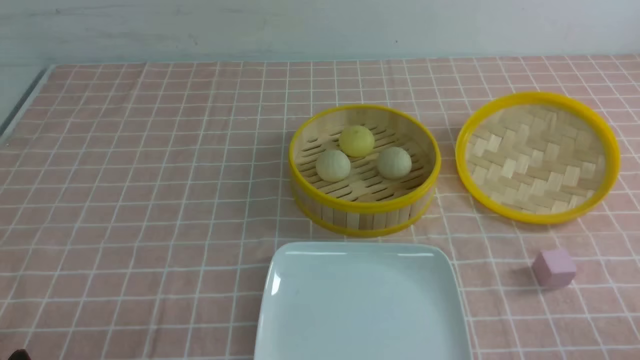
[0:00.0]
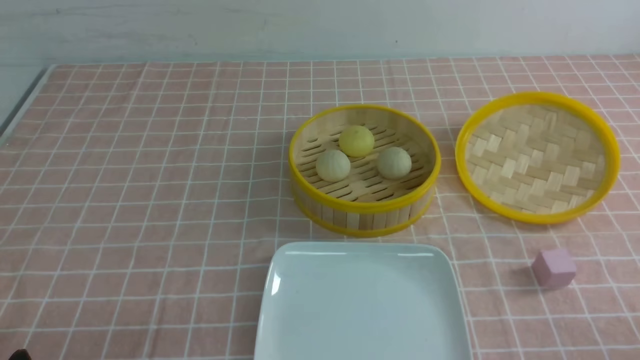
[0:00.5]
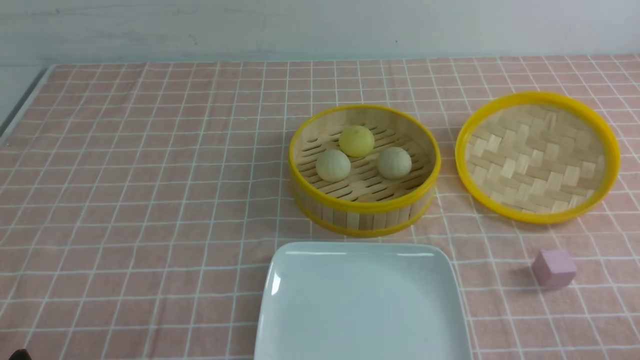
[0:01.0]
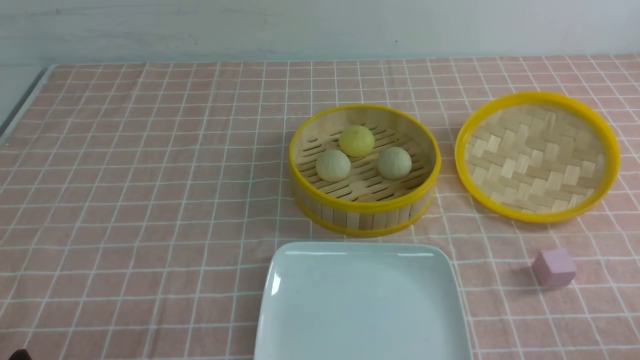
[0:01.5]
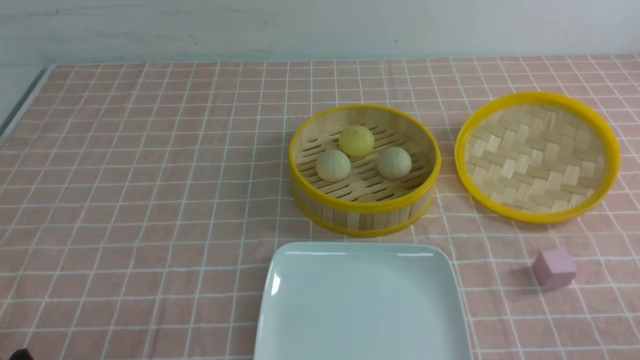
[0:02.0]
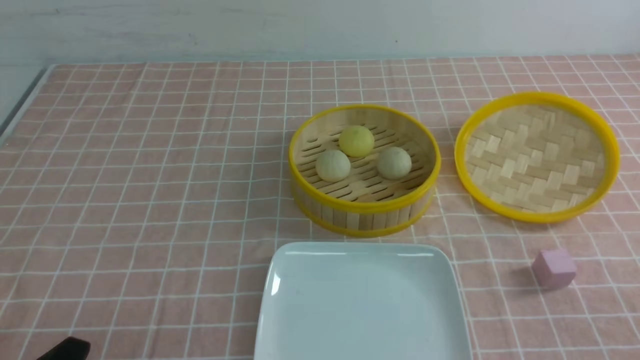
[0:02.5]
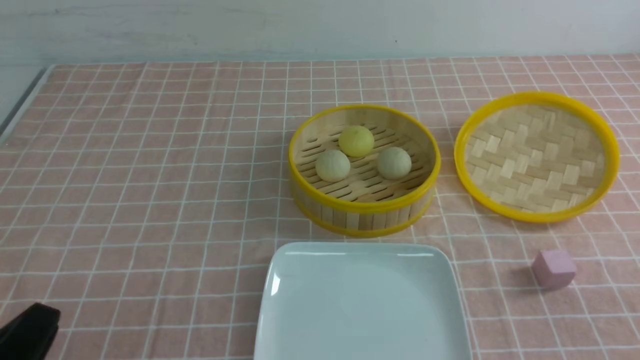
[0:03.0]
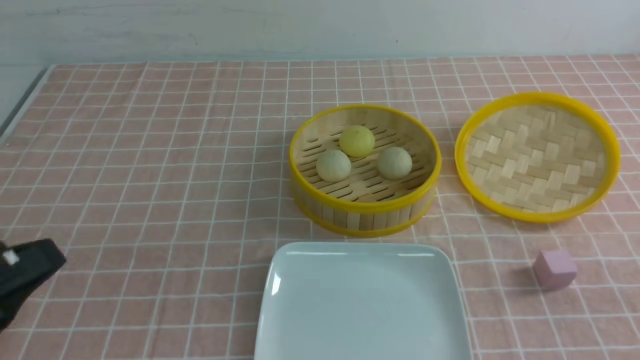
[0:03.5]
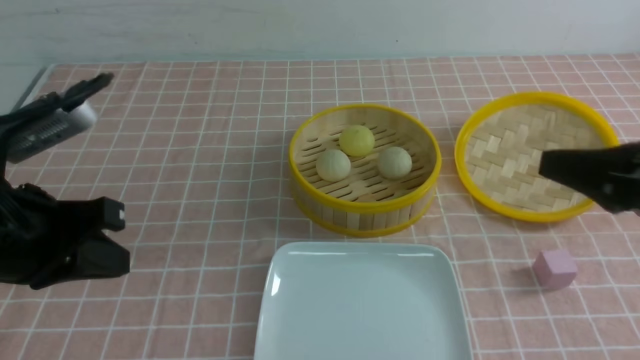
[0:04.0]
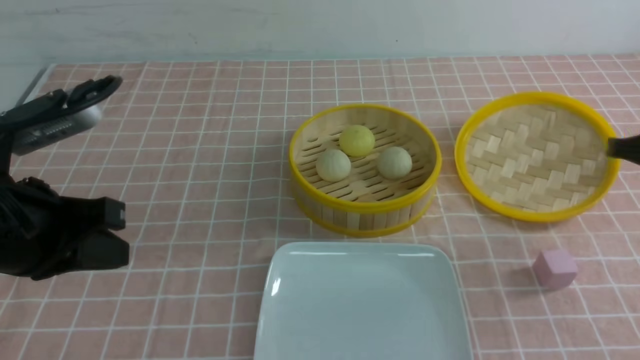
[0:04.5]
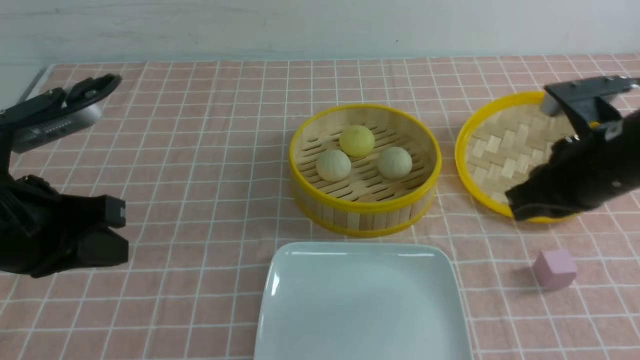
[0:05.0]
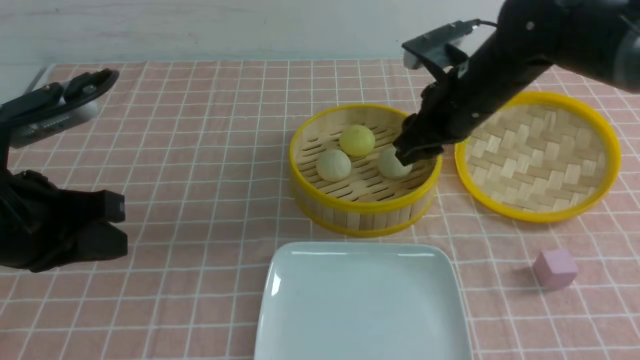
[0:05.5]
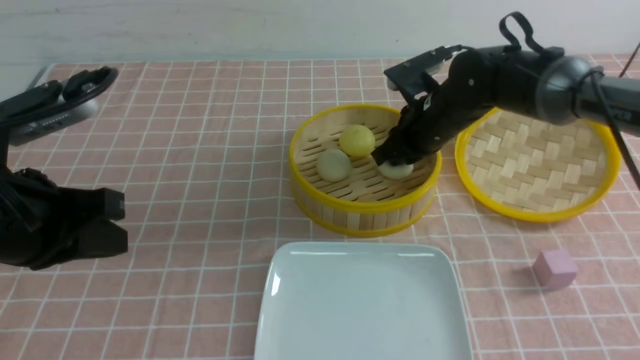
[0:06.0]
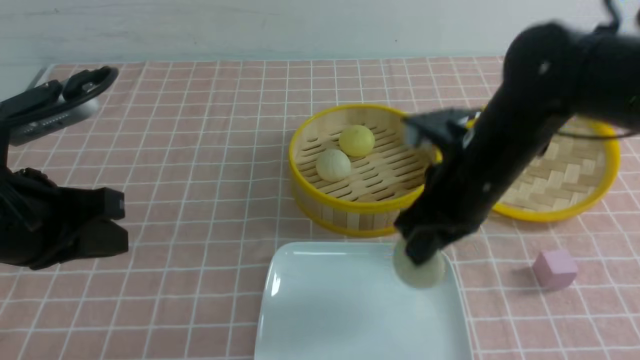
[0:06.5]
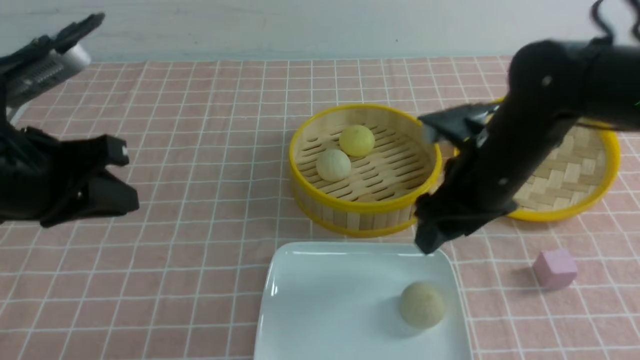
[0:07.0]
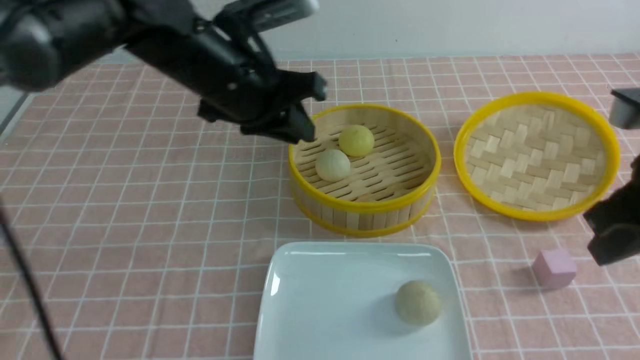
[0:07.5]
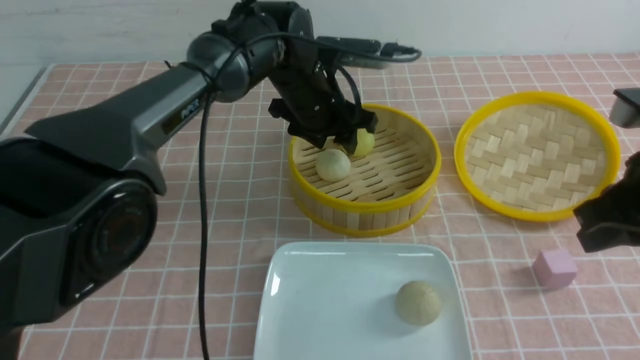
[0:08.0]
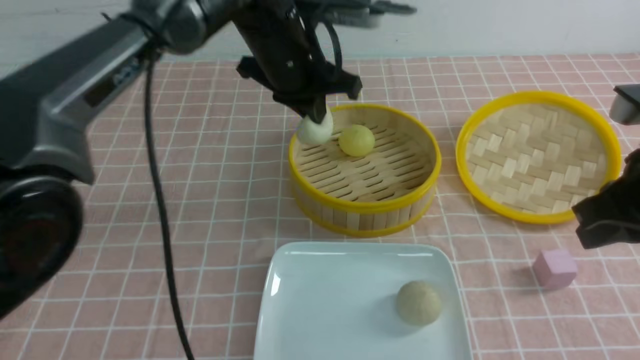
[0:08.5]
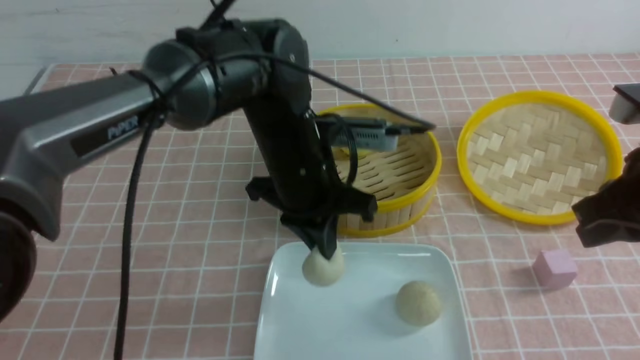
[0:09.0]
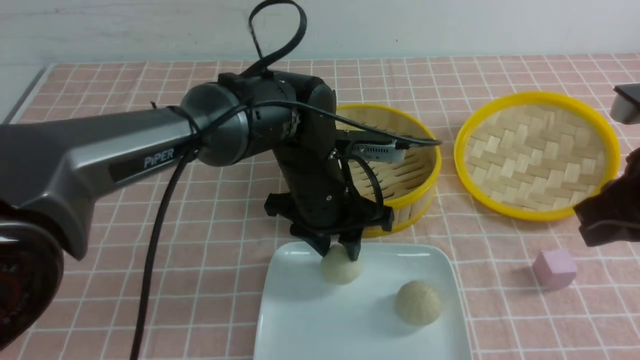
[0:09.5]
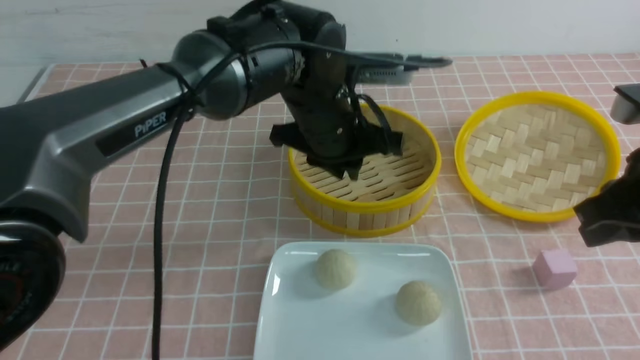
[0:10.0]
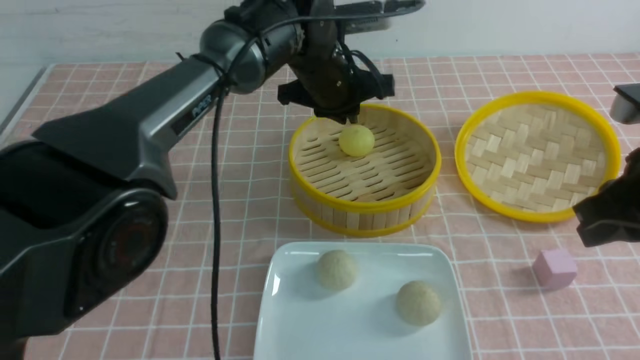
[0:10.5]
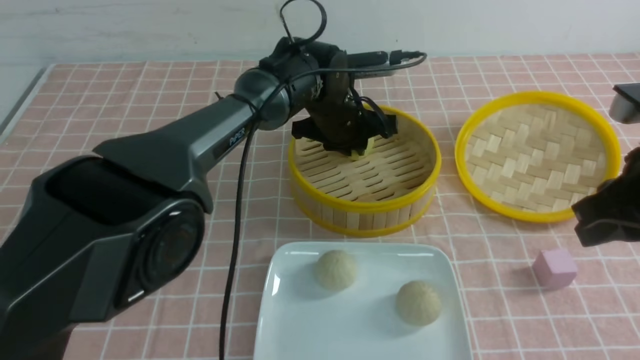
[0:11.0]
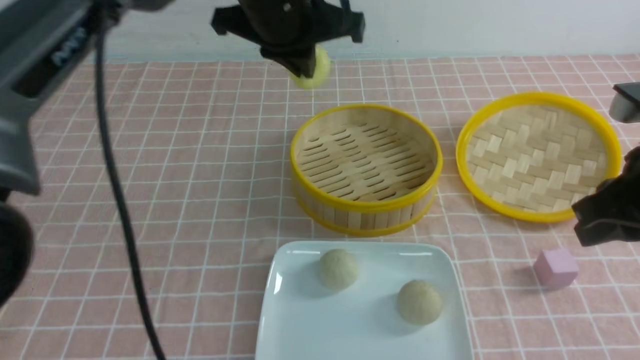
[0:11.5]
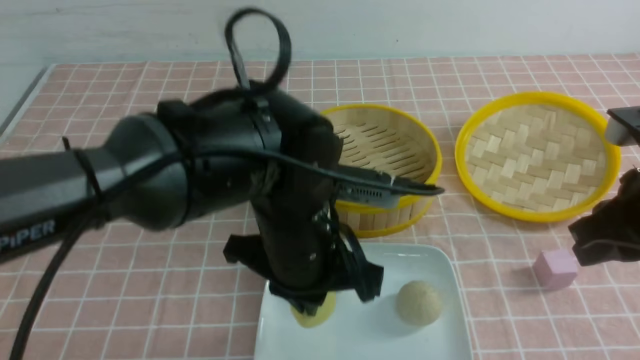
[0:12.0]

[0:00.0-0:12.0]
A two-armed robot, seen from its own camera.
Step, 0:00.0 to 0:06.0: use the right arm to grab the steamed stuffed bun that is closest to it.
Step, 0:07.0 to 0:08.0: use the left arm to grab the steamed stuffed bun that is closest to it.
Step, 0:08.5 to 0:09.5: use the left arm to put the steamed stuffed bun into the plate.
Step, 0:10.0 to 0:11.0: use the left arm to grab the steamed stuffed bun that is closest to it.
0:02.0 to 0:04.0: The left gripper is displaced upward and forward by some 20 cm, and closes up; the right gripper travels forward, upward and to the left by roughly 20 cm, and closes.
0:04.0 to 0:06.0: The right gripper goes about 25 cm forward and to the left, and opens up.
0:06.0 to 0:08.0: The left gripper goes approximately 35 cm forward and to the right, and opens up; the right gripper is displaced backward and to the right by some 25 cm, and closes its fingers.
0:08.0 to 0:10.0: The left gripper moves backward, approximately 10 cm, and closes up.
0:10.0 to 0:12.0: The left gripper moves backward, some 15 cm, and closes.

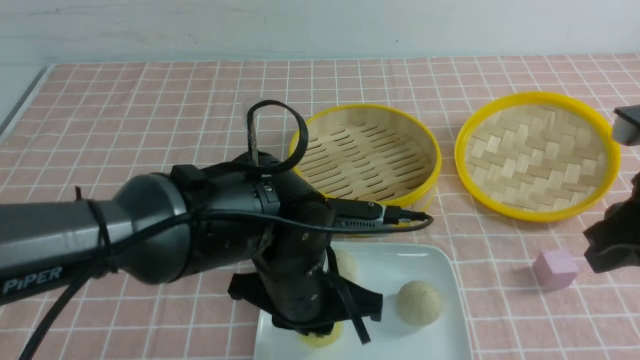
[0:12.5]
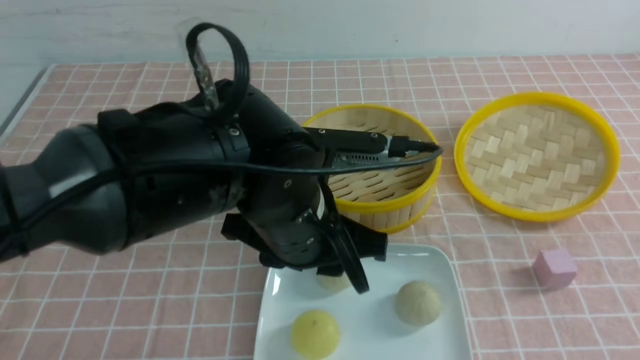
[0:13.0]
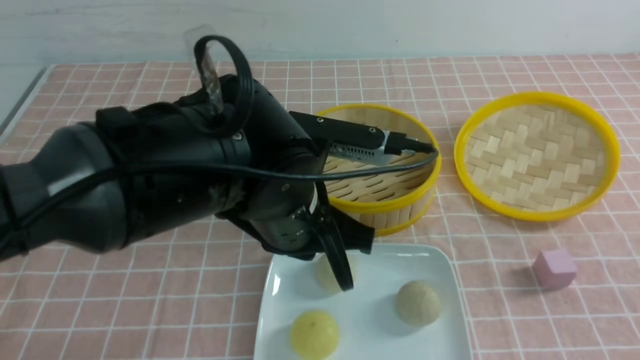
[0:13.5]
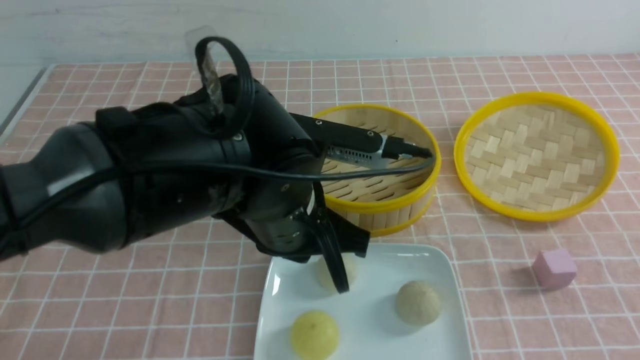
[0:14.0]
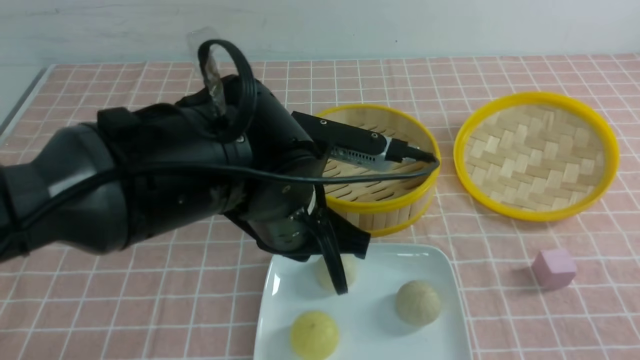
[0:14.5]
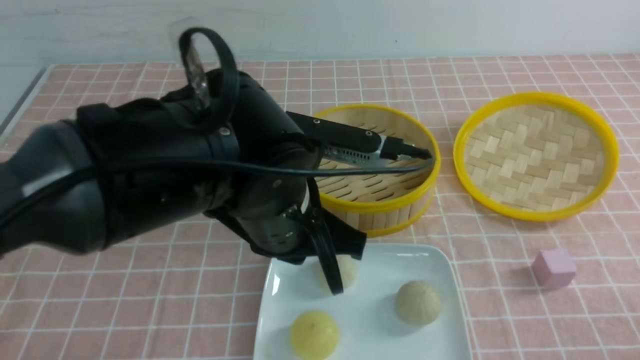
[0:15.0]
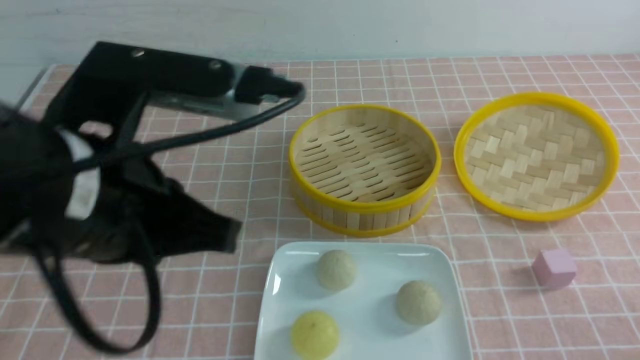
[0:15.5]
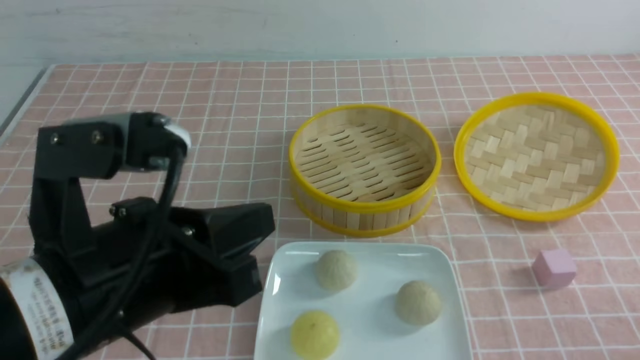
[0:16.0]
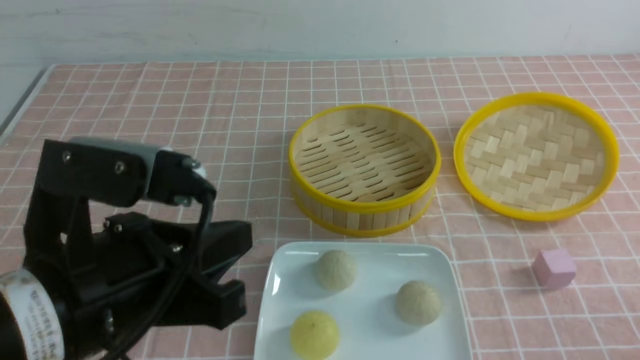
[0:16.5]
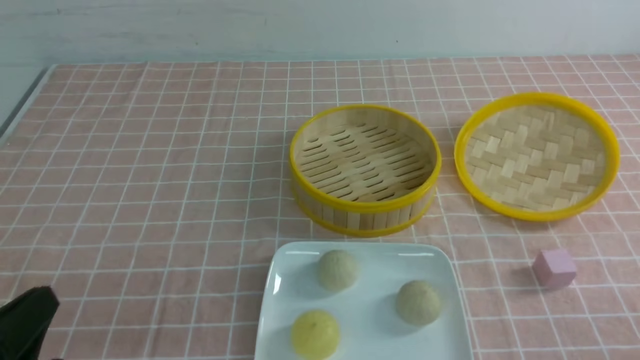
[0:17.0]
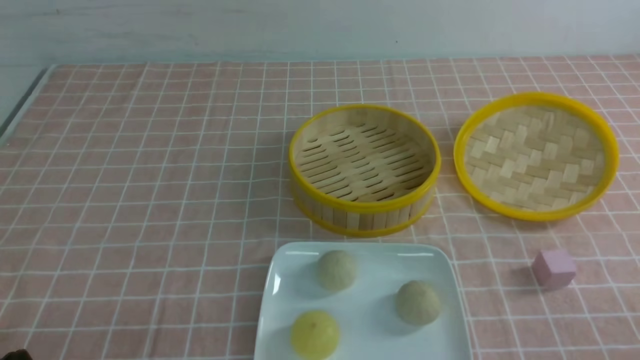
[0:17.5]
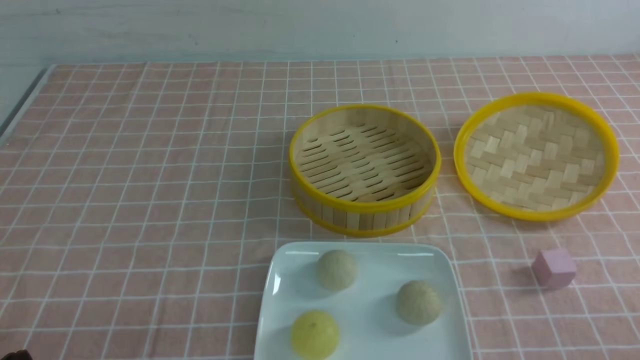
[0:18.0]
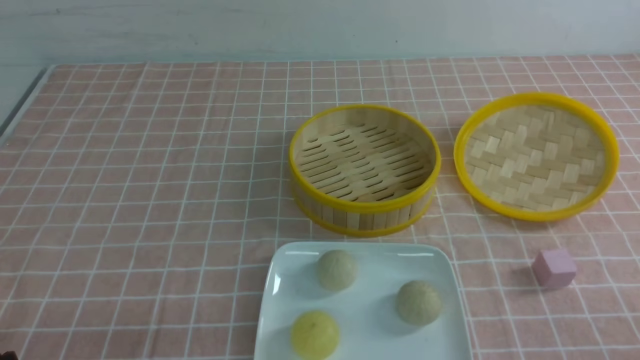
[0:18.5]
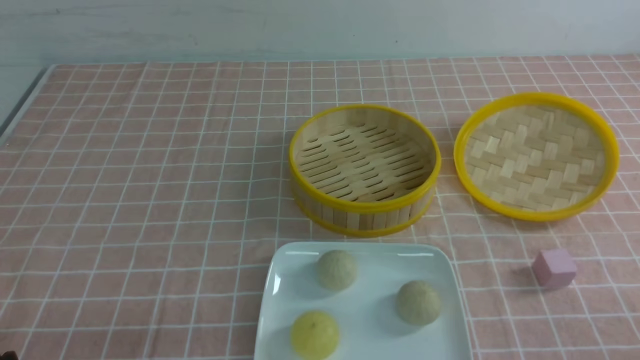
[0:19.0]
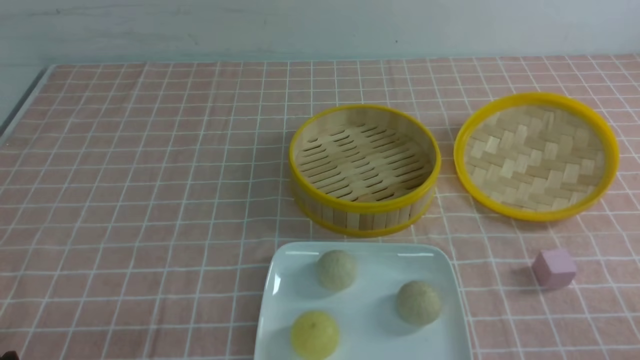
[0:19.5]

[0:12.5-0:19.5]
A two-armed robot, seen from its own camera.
0:12.5 to 0:14.5: The left gripper heads upward, covering roughly 5 cm, and closes. Meanwhile the right gripper is displaced backward and downward by about 15 cm.
0:14.5 to 0:16.0: The left gripper shifts roughly 15 cm backward and to the left. The right gripper is displaced downward by approximately 5 cm.
0:16.0 to 0:17.5: The left gripper heads downward, to the left and backward, covering about 20 cm.

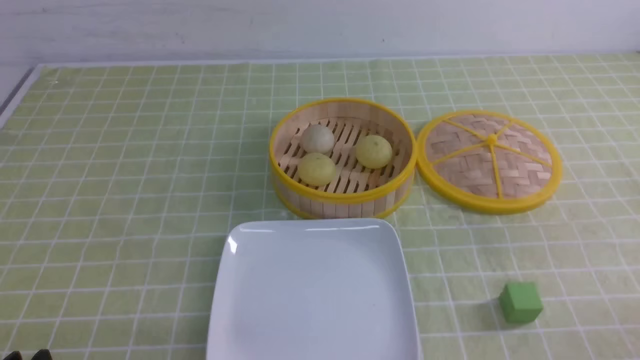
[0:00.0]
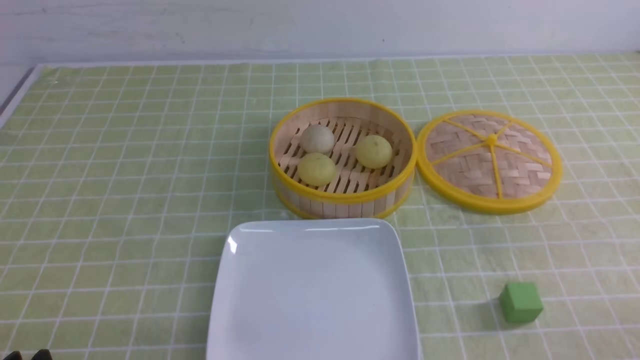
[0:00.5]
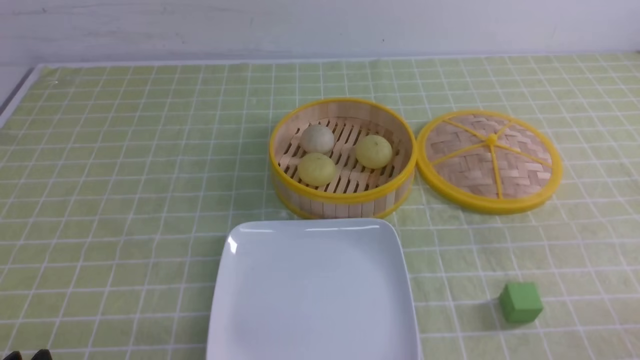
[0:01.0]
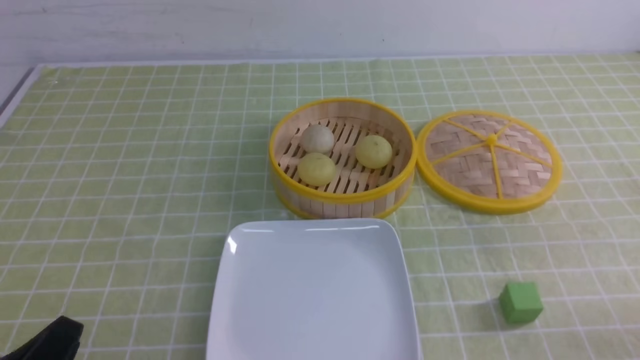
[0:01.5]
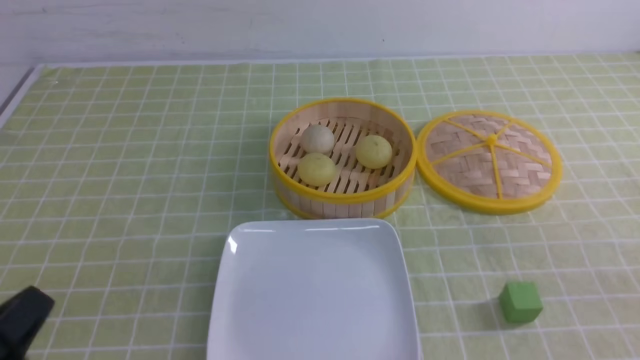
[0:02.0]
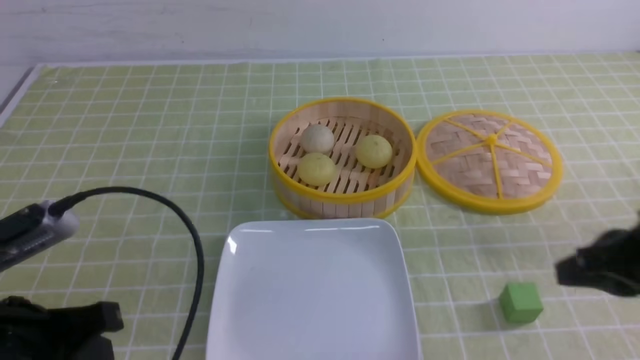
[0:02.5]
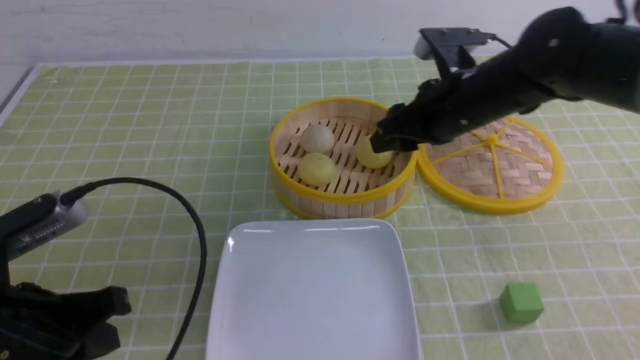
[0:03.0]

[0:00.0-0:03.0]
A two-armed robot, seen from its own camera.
0:01.5 to 0:03.0: The left gripper is displaced forward and upward by about 10 cm; the right gripper moves forward and to the left, some 40 cm, and closes, then opens again.
